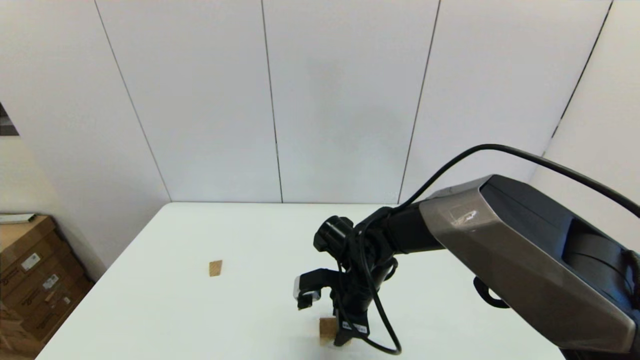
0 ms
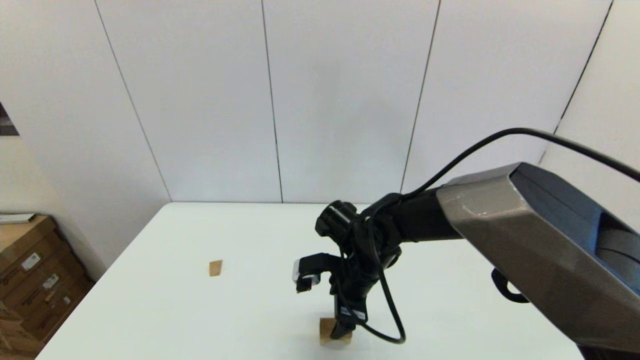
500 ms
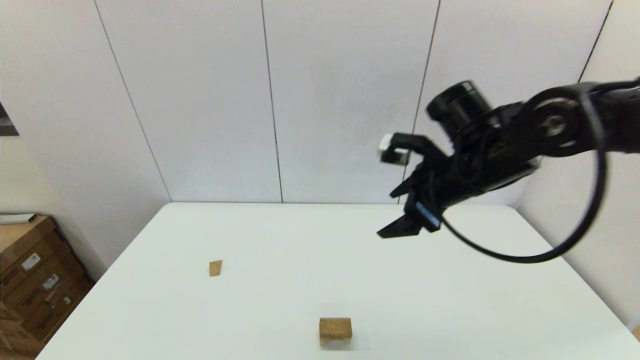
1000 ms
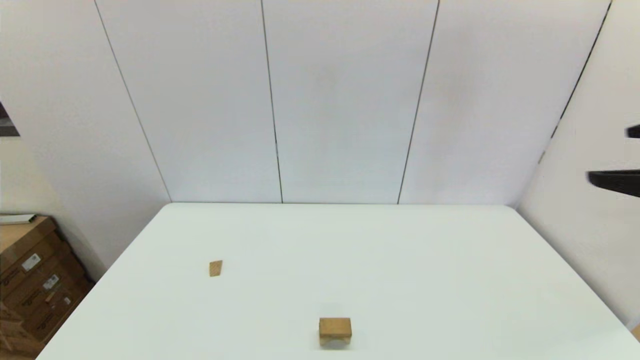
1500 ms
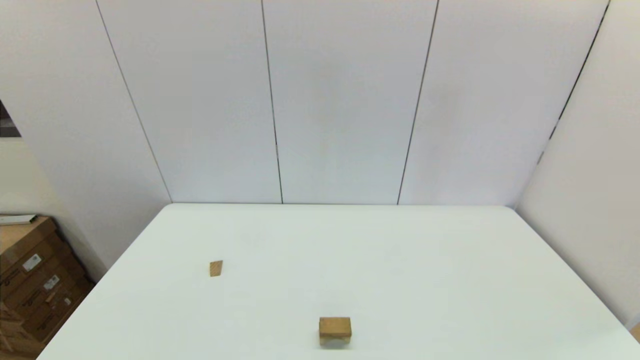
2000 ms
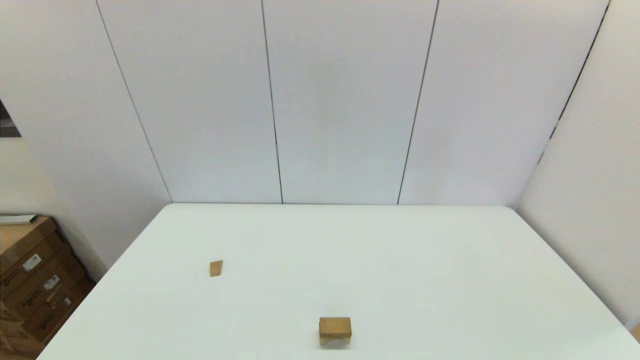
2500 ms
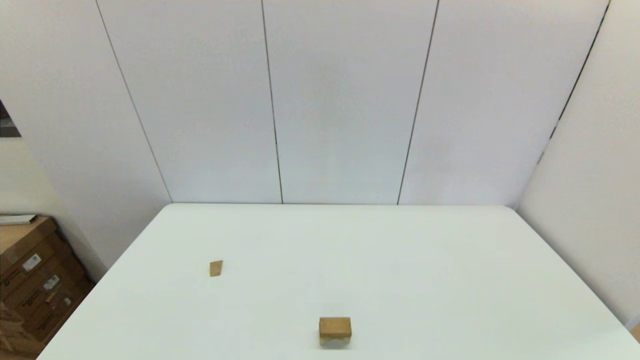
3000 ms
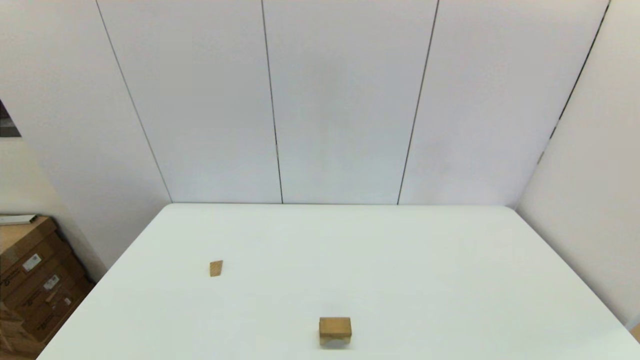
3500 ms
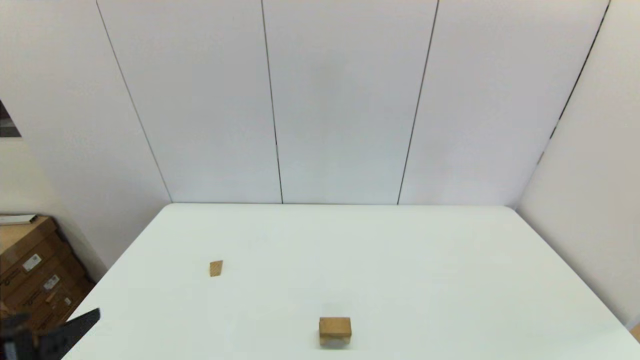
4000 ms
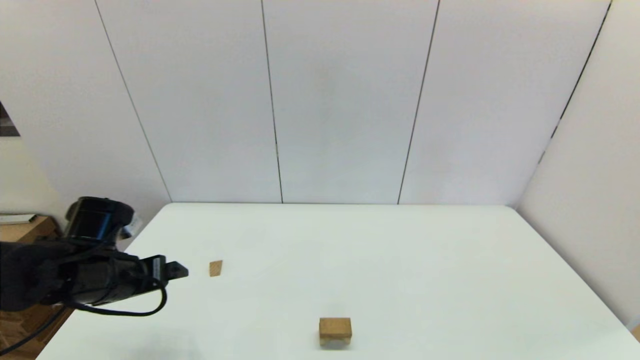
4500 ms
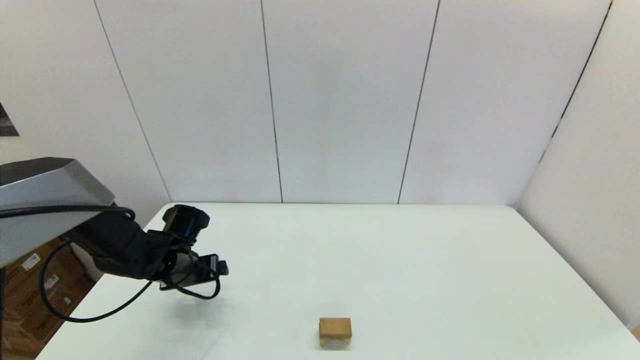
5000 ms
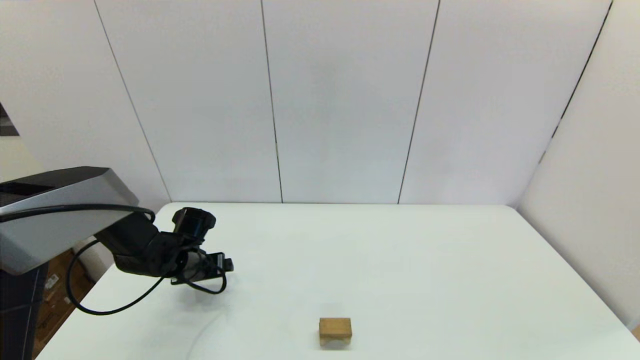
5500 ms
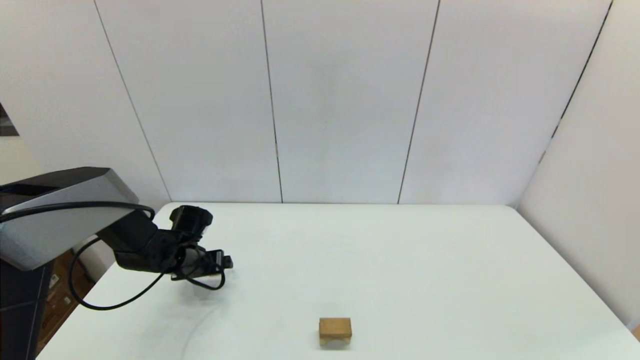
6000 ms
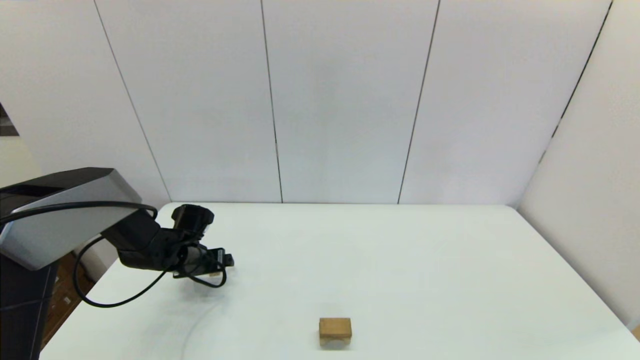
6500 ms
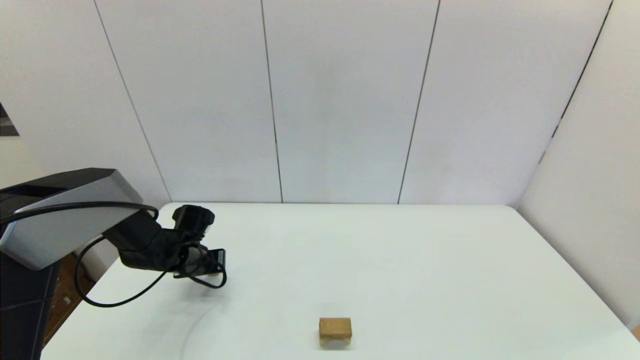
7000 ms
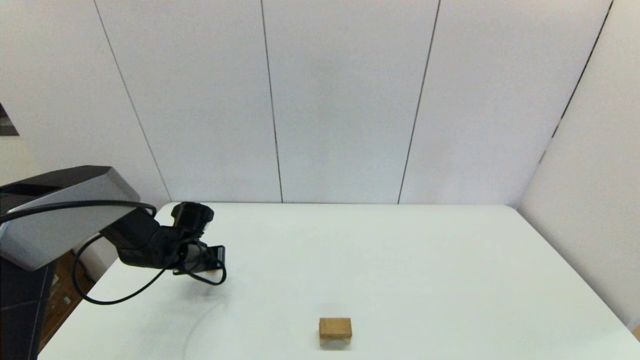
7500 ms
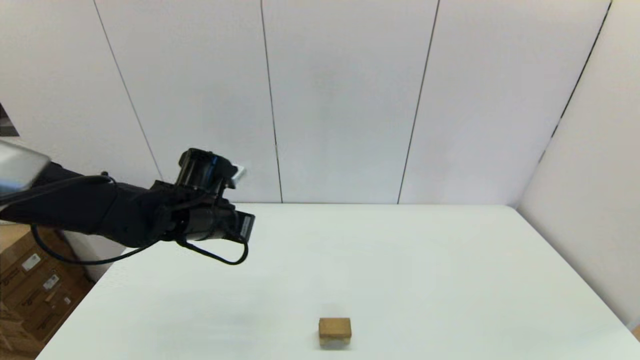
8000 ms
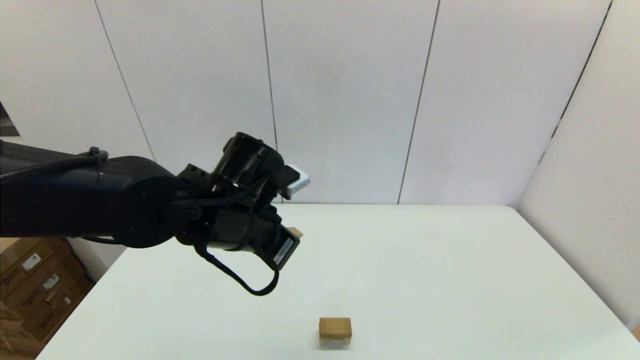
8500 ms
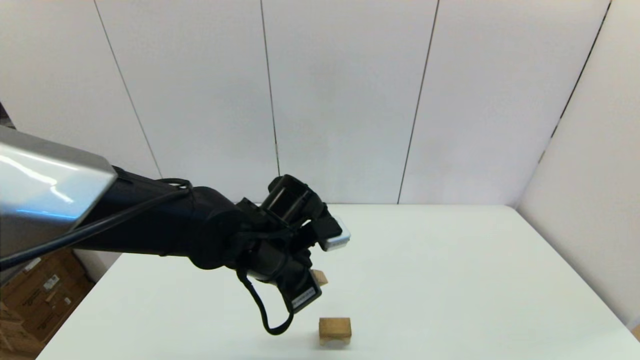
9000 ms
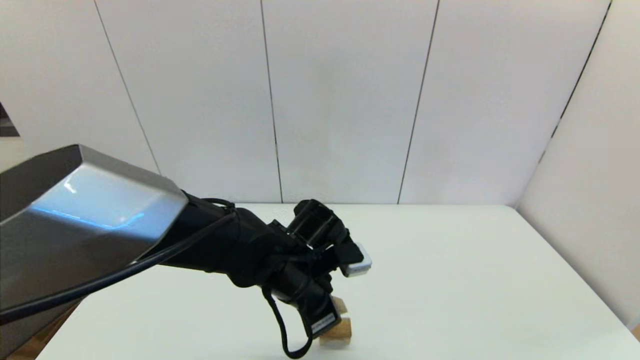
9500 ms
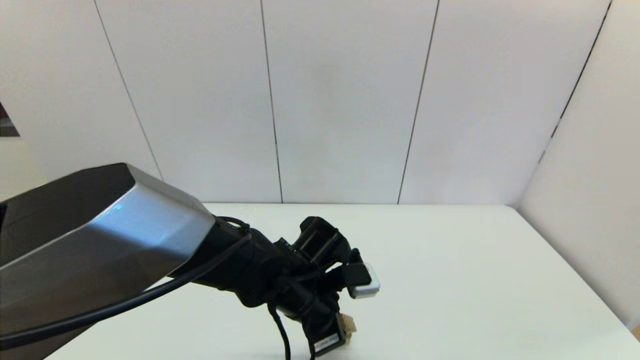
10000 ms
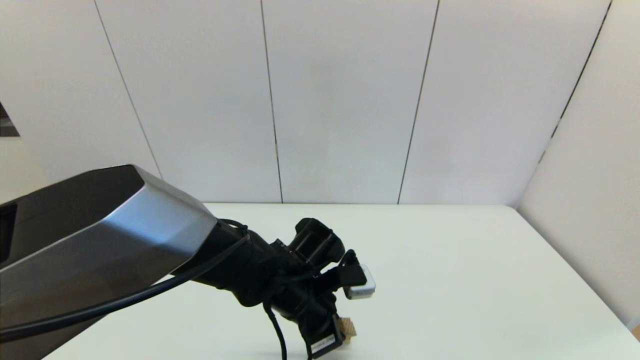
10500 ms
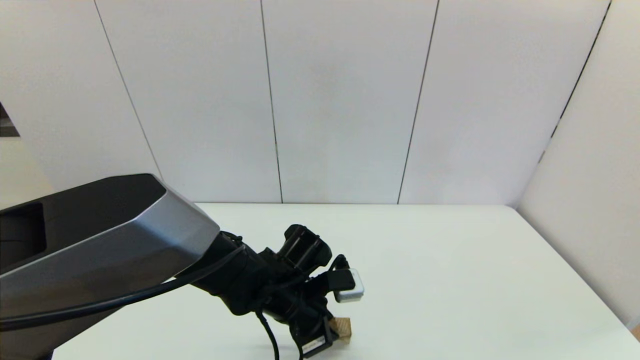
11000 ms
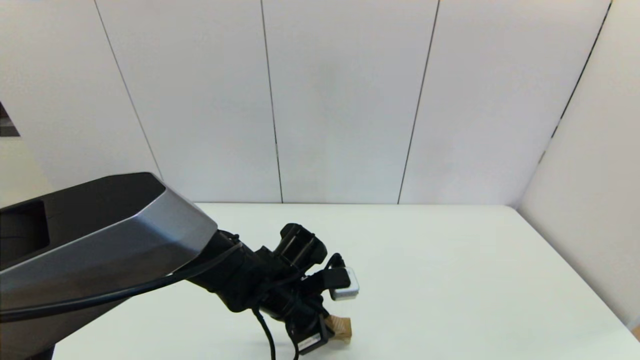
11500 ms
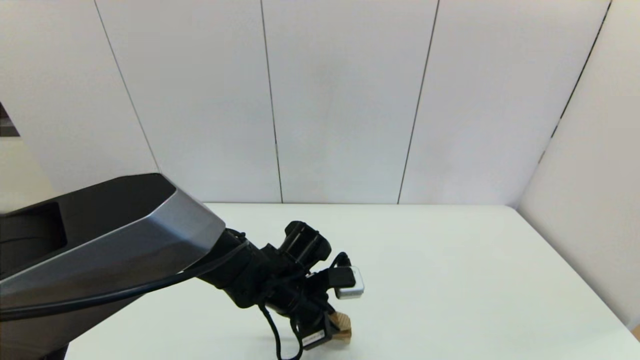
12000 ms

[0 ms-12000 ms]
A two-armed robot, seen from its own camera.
Task of the whole recording: place the arched building blocks in the center of the table, set up the rectangular building blocks, and then set up the triangular building blocks.
Step, 500 ms to 7000 ms: Grasp the triangle-shaped block with the left gripper.
0 ms to 2000 ms: The right gripper goes some 50 cm backward, to the right and upward, and opens up.
2000 ms to 4000 ms: The left gripper heads forward and upward, covering some 15 cm.
4000 ms to 6000 ms: The left gripper heads forward and downward, covering some 35 cm.
6000 ms to 8000 ms: The left gripper travels upward and to the right by approximately 20 cm, and closes its fingers.
8000 ms to 10000 ms: The left gripper goes some 15 cm to the right, downward and backward.
10000 ms to 12000 ms: There are only small adjustments of the grippers.

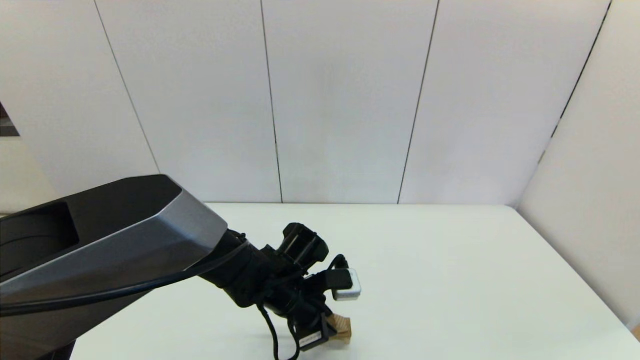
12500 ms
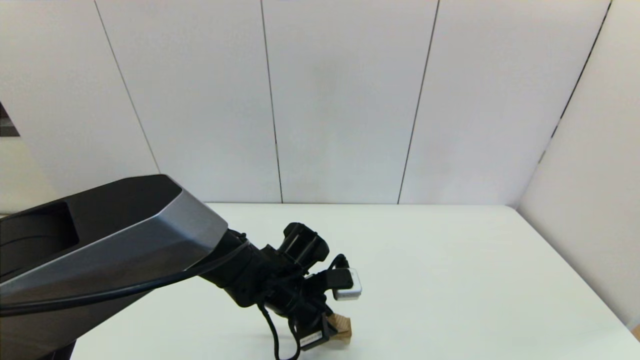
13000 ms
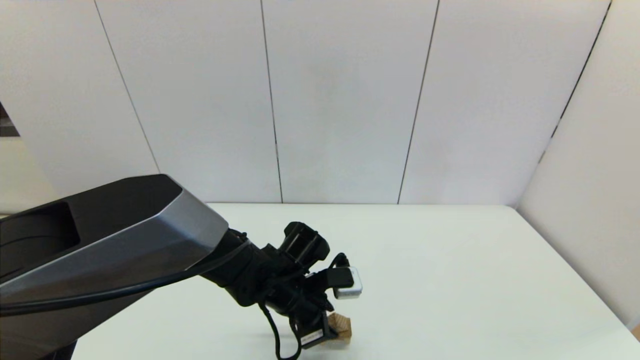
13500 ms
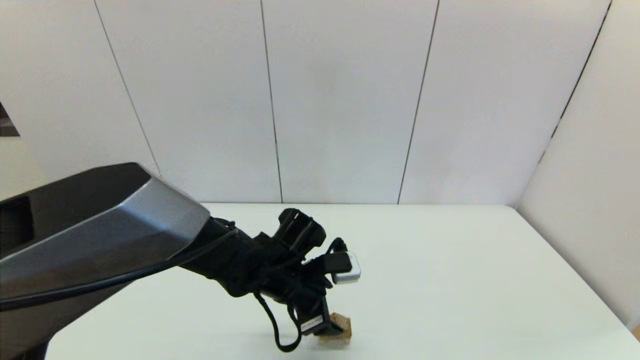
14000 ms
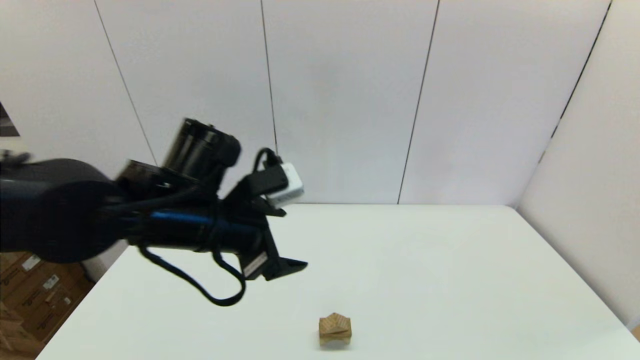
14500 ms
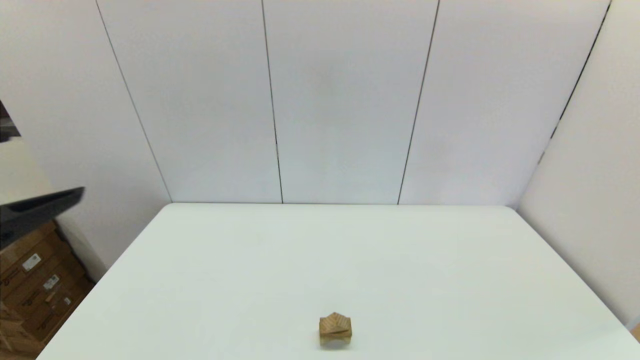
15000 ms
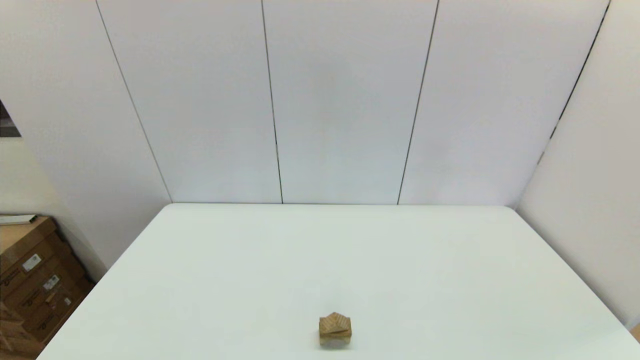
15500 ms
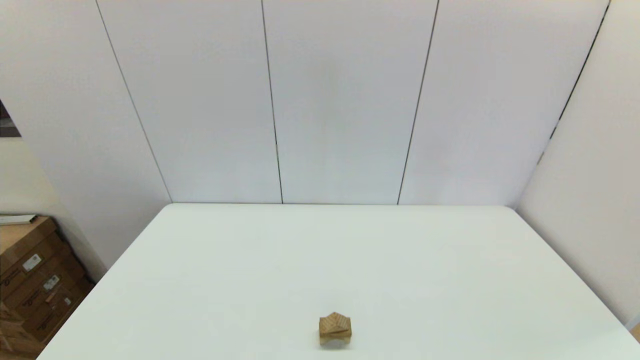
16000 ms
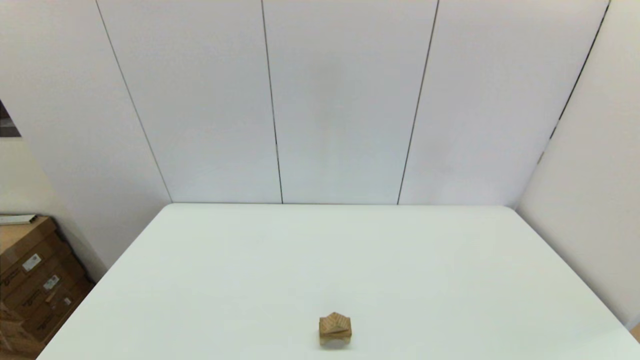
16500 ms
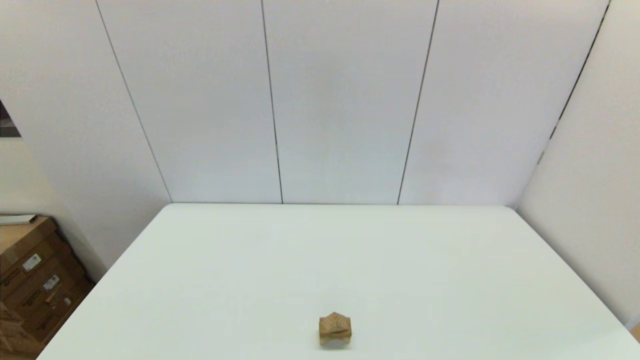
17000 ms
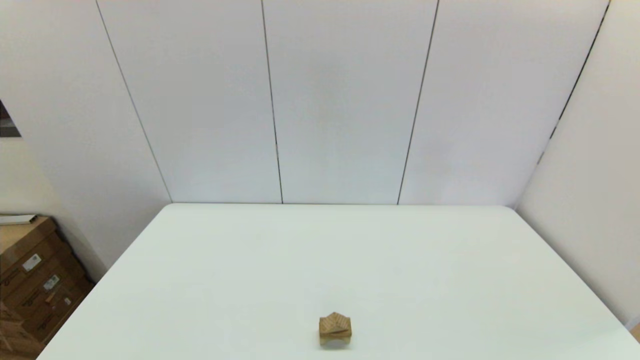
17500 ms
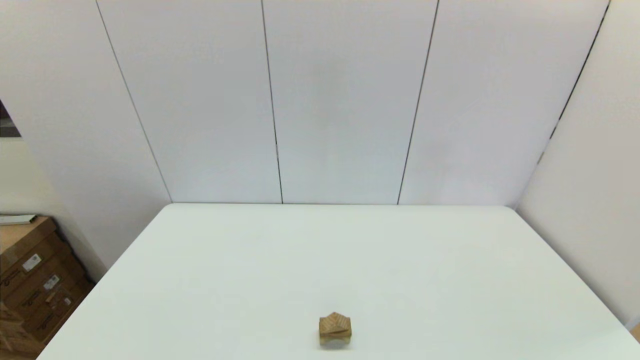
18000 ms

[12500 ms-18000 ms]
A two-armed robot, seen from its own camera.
Task of the whole recording: place the arched building blocks in the center of the table, set up the rectangular building blocks, and then set up the triangular building blocks.
12500 ms to 14500 ms: The left gripper goes about 20 cm upward and to the left, and opens its fingers.
14500 ms to 16000 ms: The left gripper heads backward and to the left, covering approximately 30 cm.
